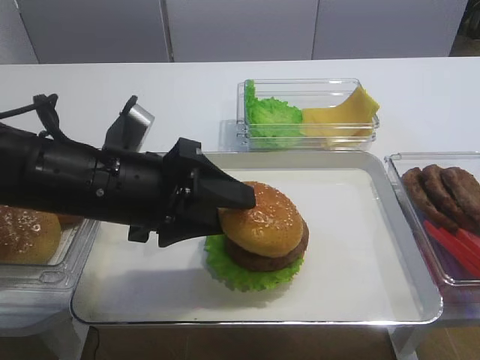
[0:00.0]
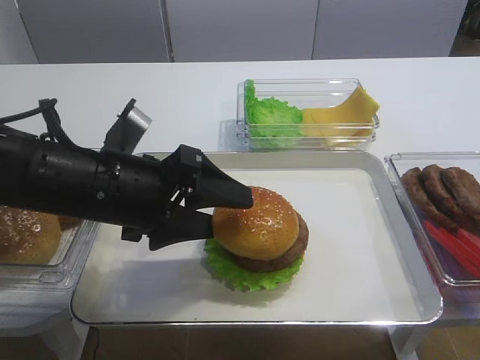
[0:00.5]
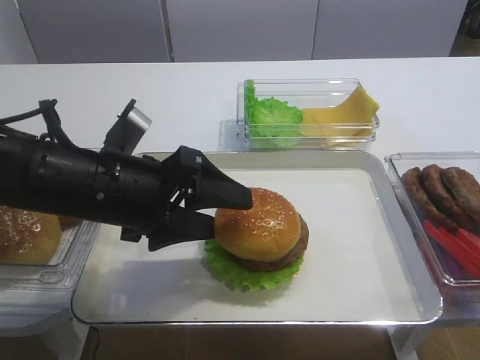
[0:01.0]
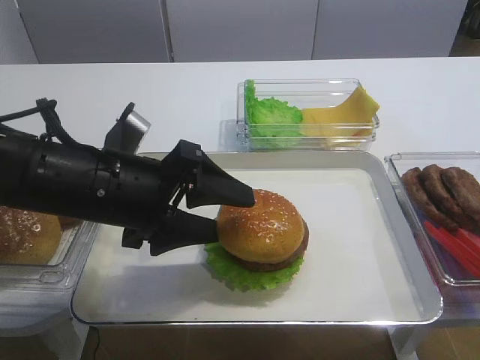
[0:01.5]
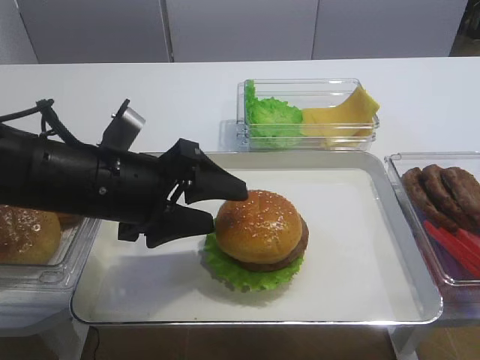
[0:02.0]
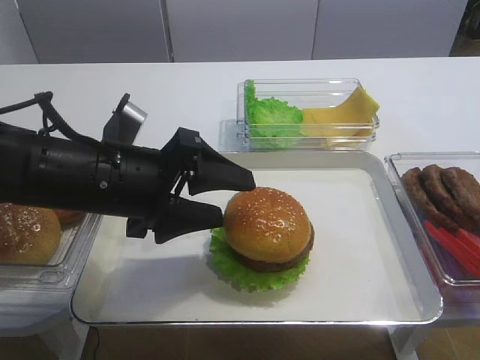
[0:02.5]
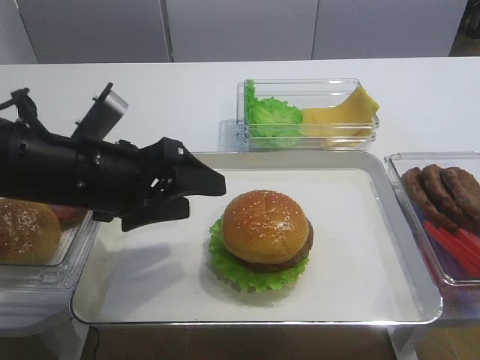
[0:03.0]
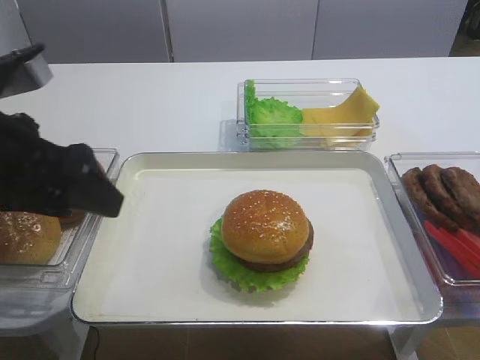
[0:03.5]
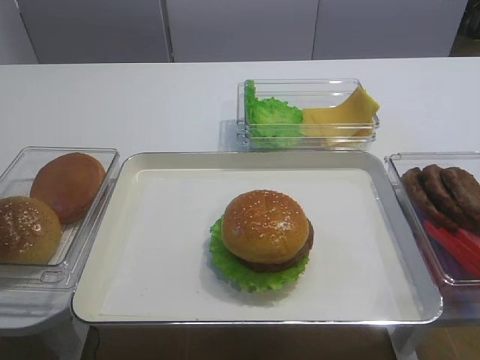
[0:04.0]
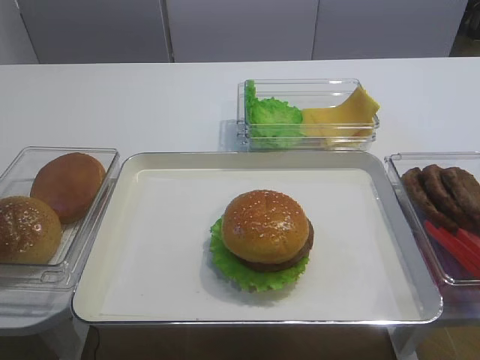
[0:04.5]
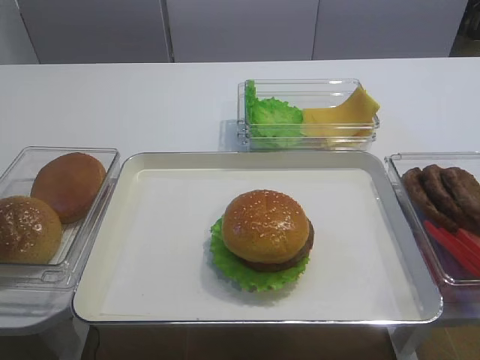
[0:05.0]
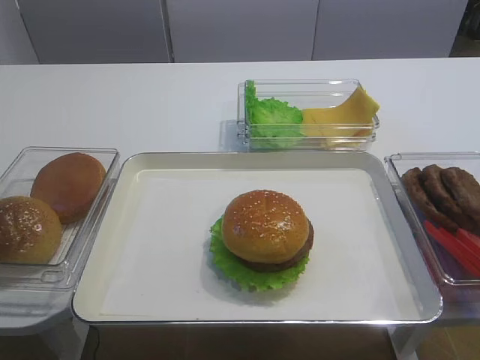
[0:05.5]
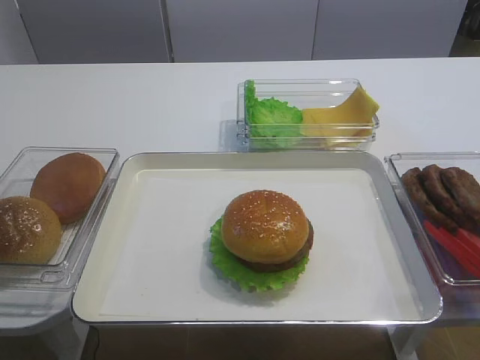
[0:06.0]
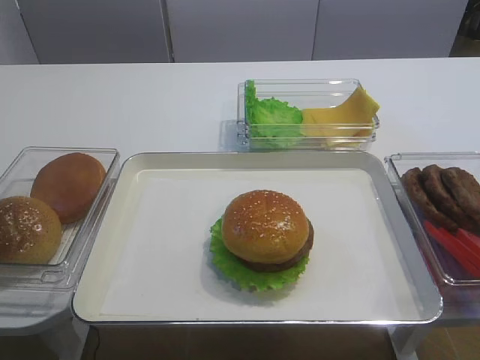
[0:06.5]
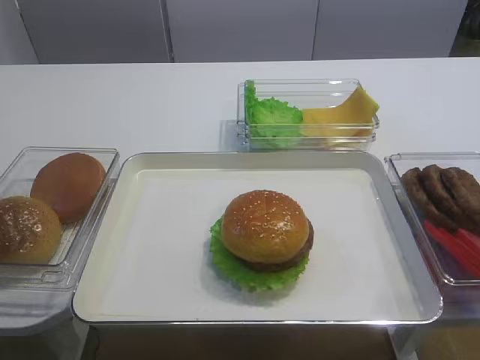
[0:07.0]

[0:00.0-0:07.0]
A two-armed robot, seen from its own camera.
Step, 0:00.0 to 0:03.0: Place the hamburger lid on the cutlet slice with the left gripper.
0:00.0 to 0:02.0: The grippers stay close to where they were, moving slightly.
0:02.0 to 0:03.5: The left gripper shifts about 10 cm to the left and upward.
0:03.5 to 0:05.0: The left gripper heads backward and to the left, covering roughly 25 cm.

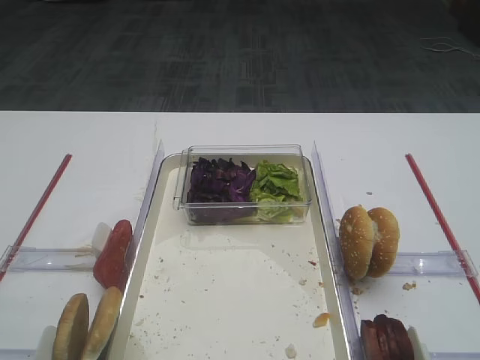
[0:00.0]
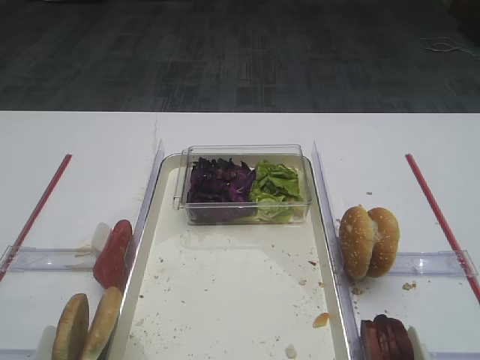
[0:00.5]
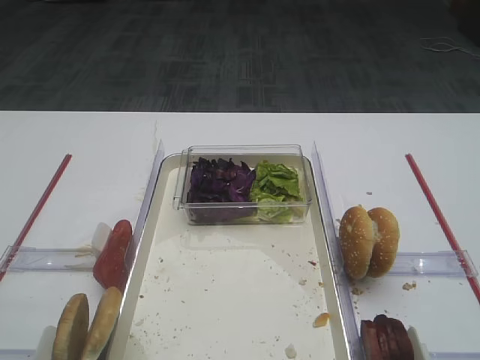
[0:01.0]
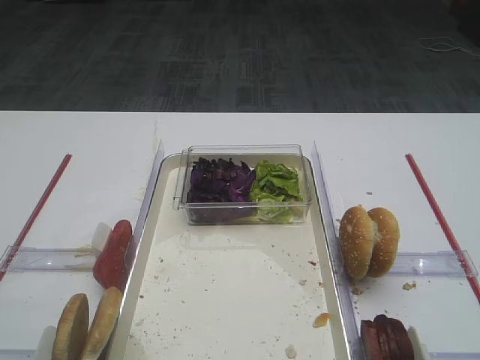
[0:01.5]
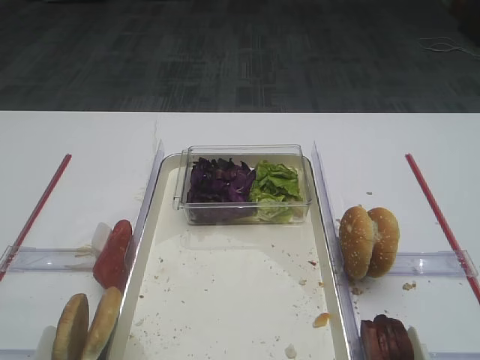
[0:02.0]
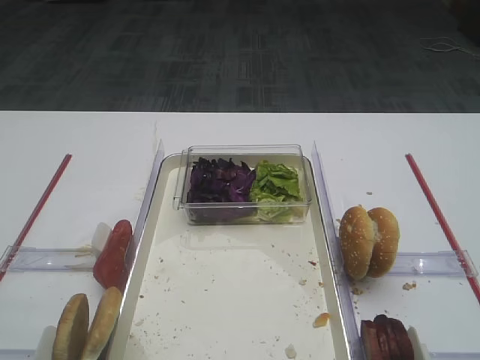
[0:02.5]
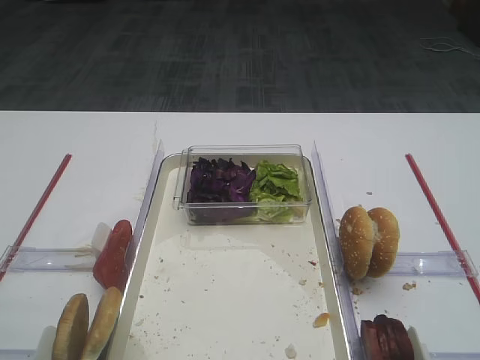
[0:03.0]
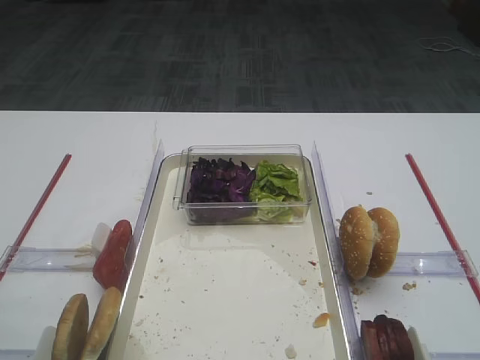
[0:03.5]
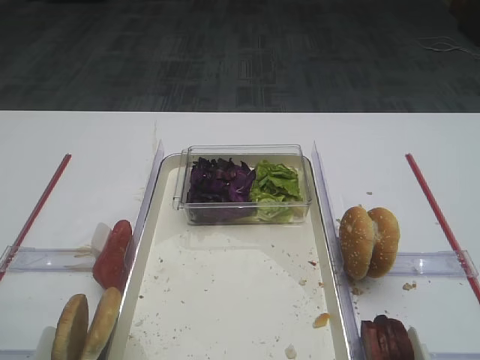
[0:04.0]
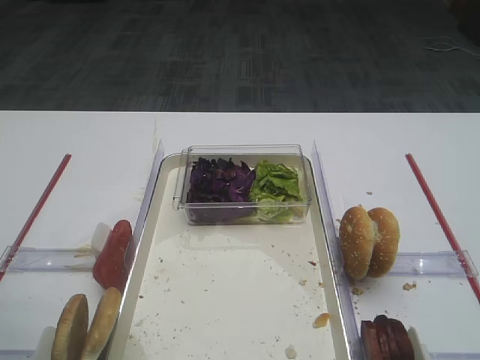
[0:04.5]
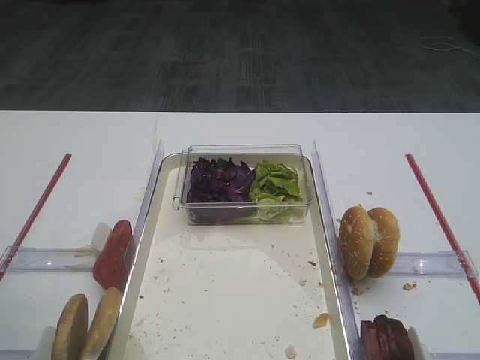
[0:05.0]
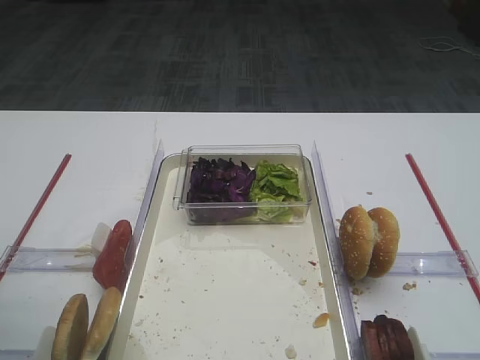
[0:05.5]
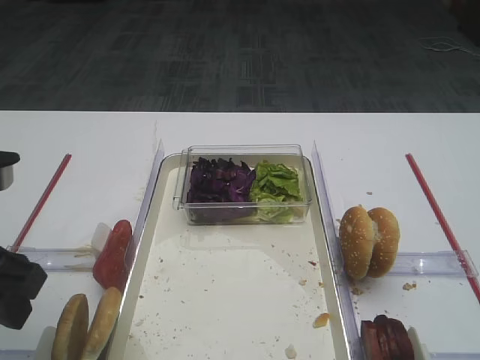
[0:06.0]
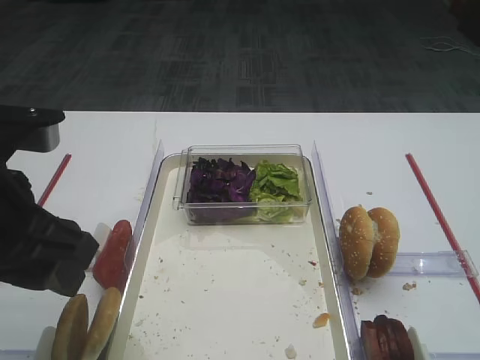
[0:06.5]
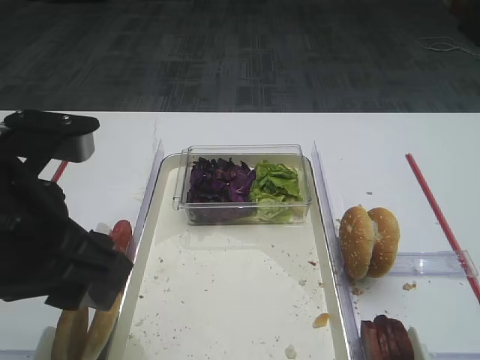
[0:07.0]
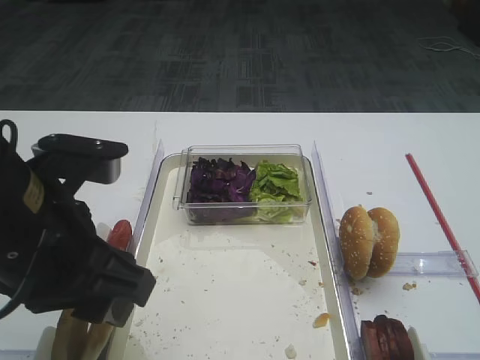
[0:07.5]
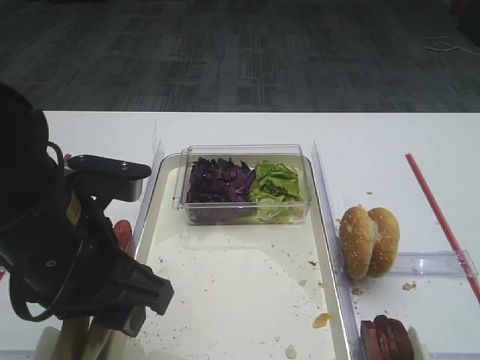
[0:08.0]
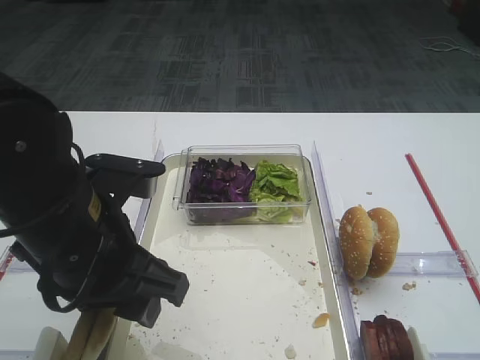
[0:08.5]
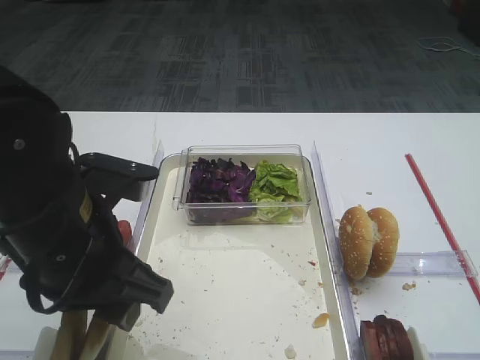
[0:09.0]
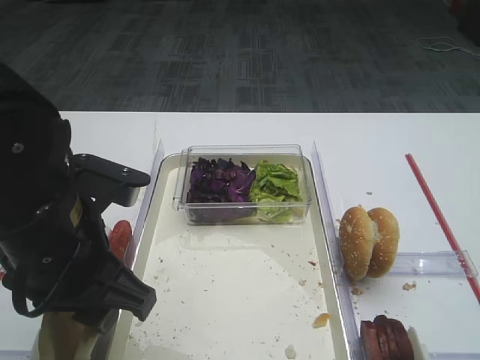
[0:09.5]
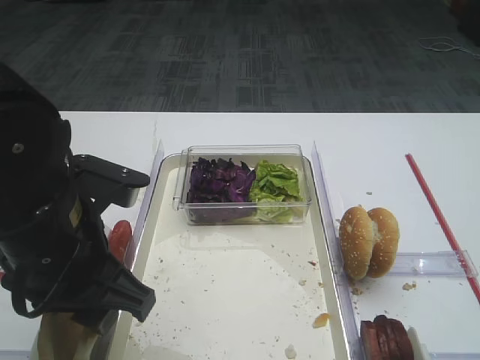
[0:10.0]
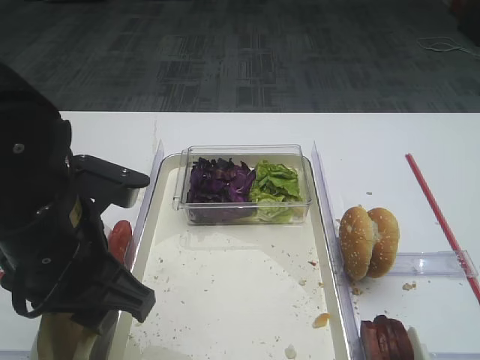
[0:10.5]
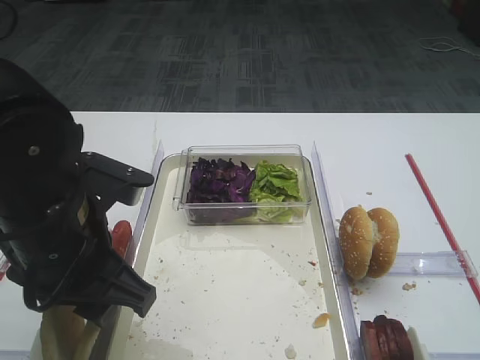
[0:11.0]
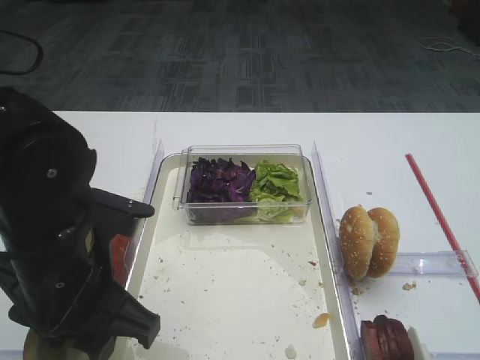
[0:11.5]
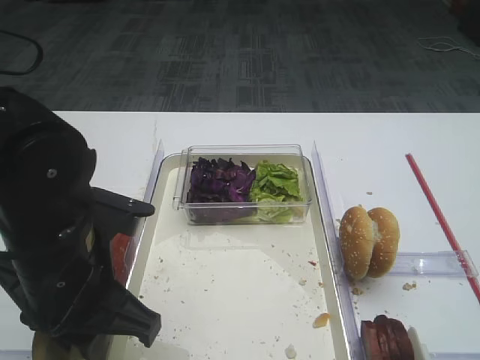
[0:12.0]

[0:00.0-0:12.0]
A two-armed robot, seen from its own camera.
0:04.0 to 0:06.0: The left gripper heads to the right and forward, covering approximately 10 cm.
0:06.0 to 0:08.0: The left gripper is displaced to the right by approximately 10 cm.
0:08.0 to 0:10.0: There are only small adjustments of the grippers.
0:10.0 to 0:12.0: The left gripper closes up.

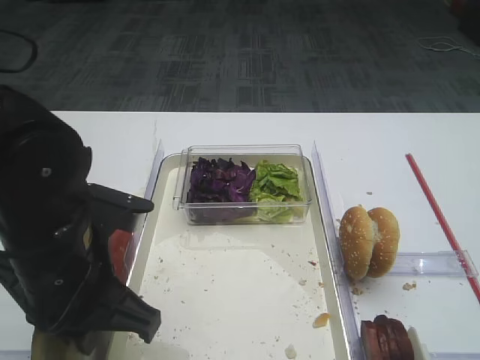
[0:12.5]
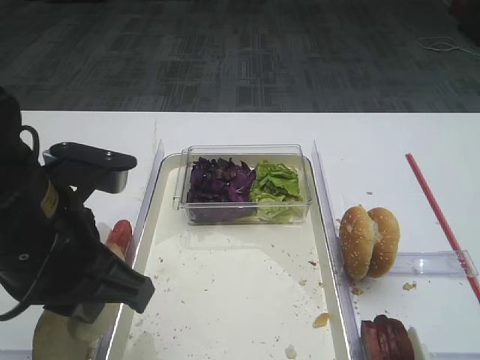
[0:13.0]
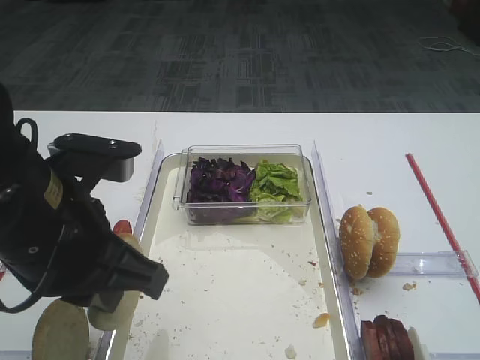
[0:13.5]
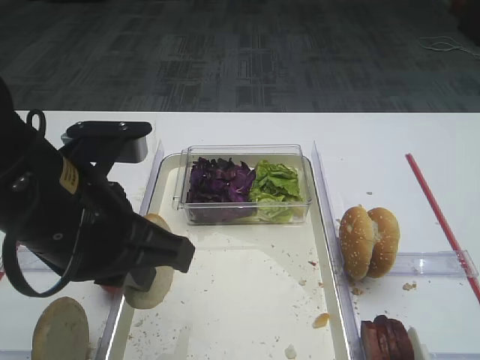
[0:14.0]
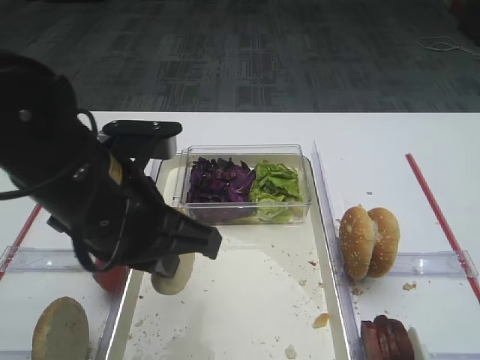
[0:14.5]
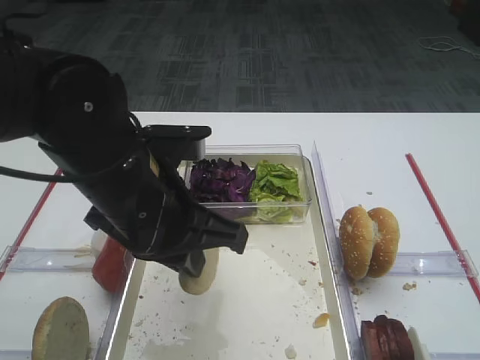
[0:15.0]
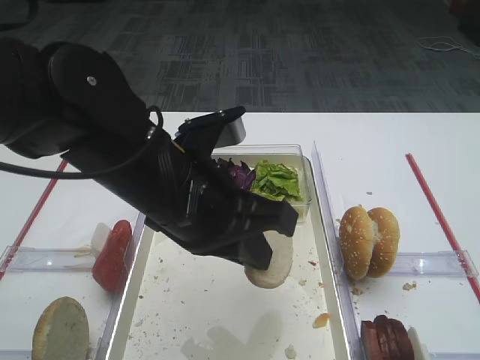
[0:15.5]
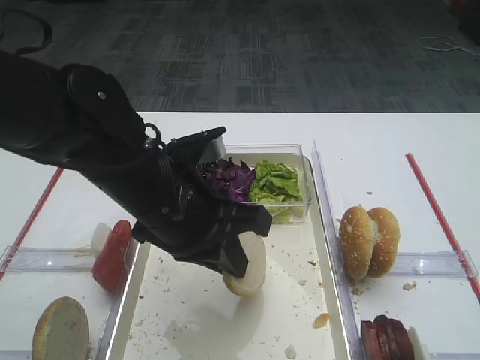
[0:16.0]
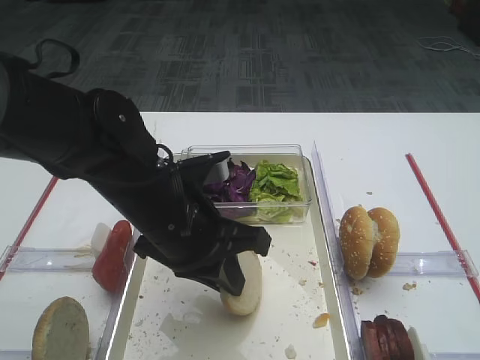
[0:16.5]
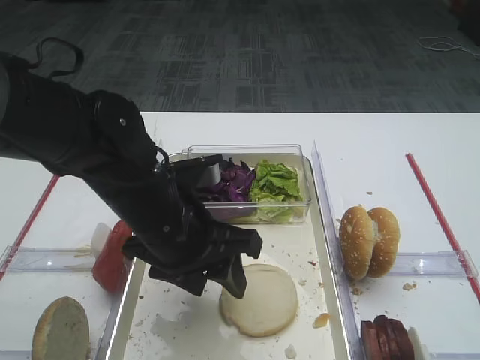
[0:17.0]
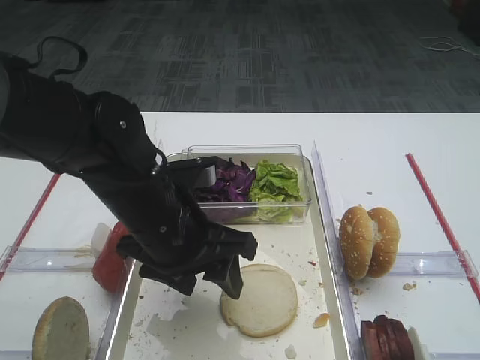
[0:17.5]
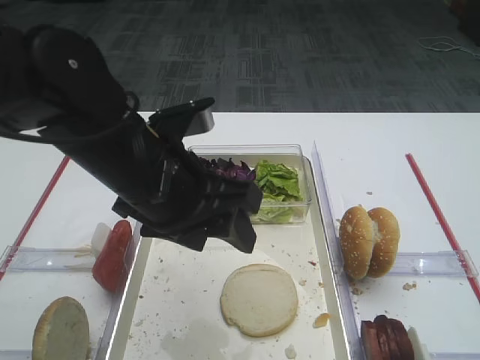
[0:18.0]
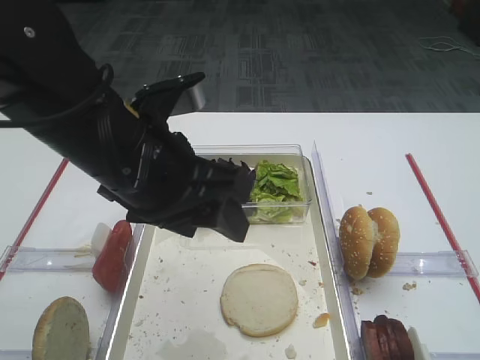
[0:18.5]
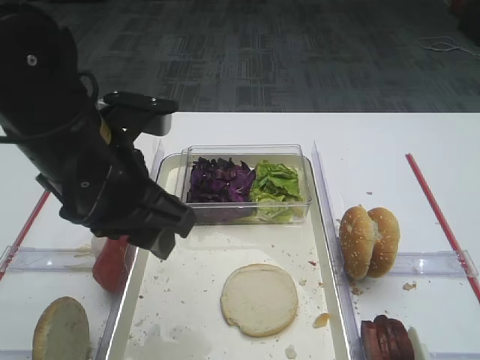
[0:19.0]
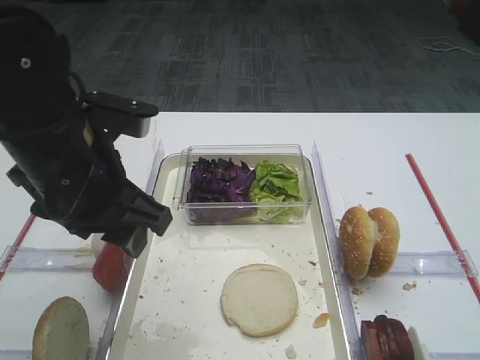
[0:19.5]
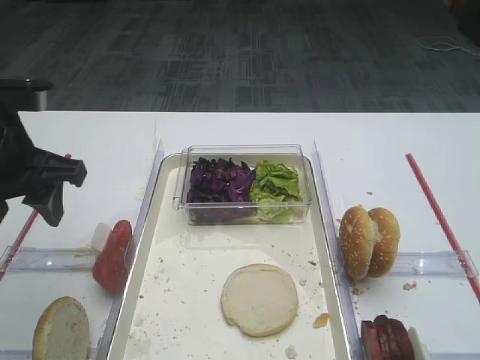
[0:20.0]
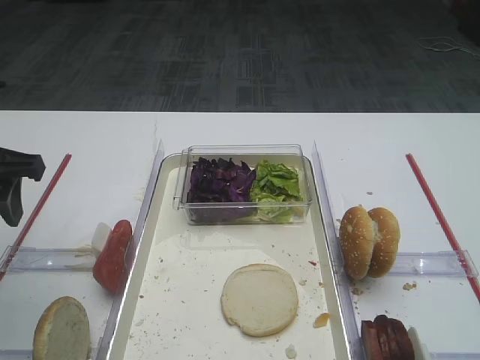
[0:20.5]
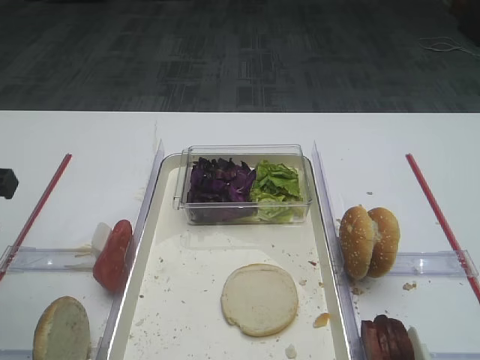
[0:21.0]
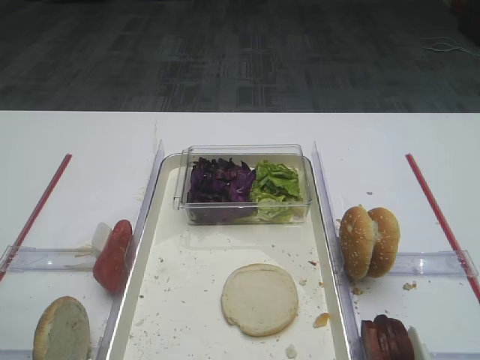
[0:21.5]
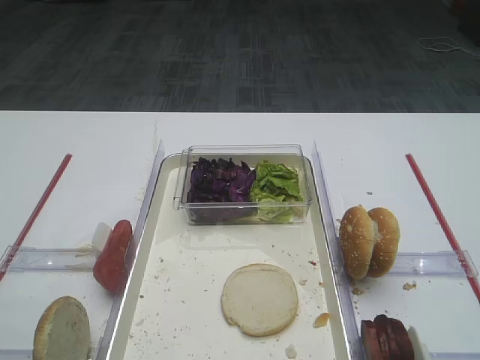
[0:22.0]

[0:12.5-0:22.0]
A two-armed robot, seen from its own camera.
Step, 0:13.0 to 0:17.5: Place the bread slice on the tray with the left gripper.
0:12.5 to 0:14.5: The left gripper moves about 5 cm.
0:14.5 to 0:16.5: The left gripper shifts roughly 5 cm downward.
0:16.5 to 0:18.0: The left gripper is displaced upward by some 5 cm, and opens up.
0:18.0 to 0:20.0: The left gripper moves to the left, approximately 15 cm.
0:20.0 to 0:22.0: The left gripper goes about 20 cm backward.
